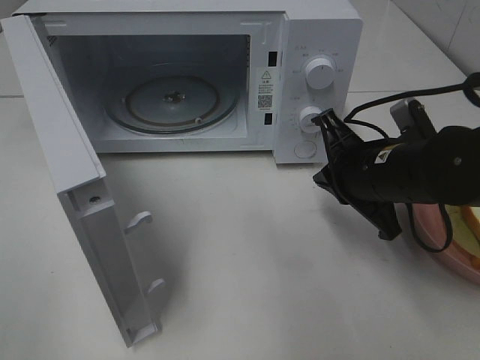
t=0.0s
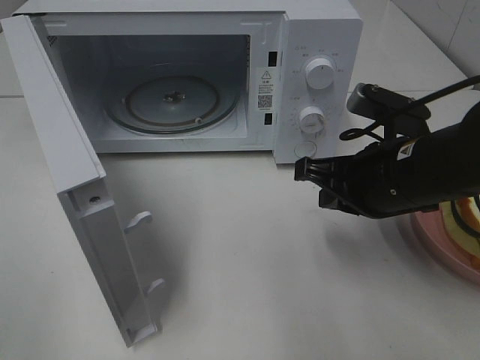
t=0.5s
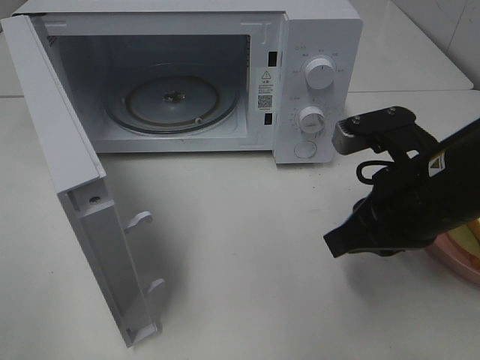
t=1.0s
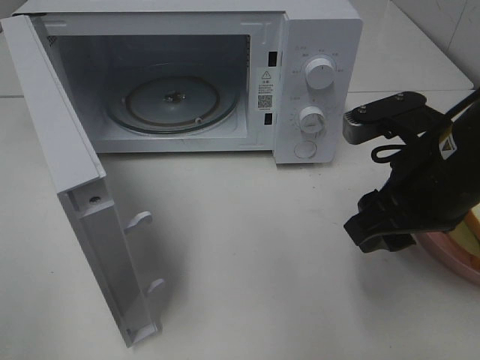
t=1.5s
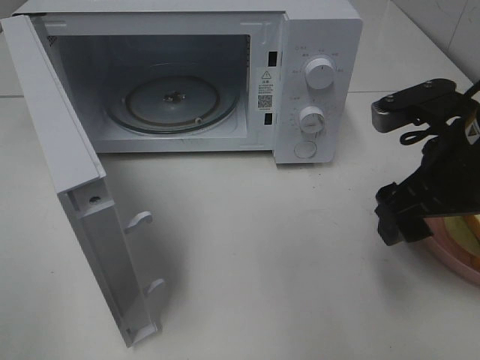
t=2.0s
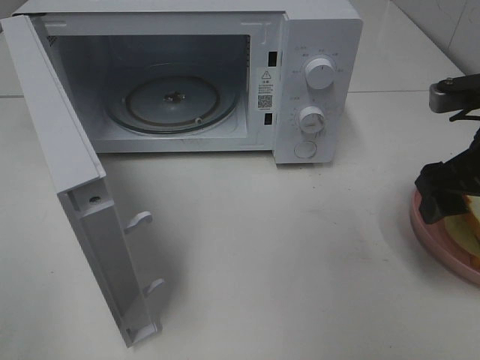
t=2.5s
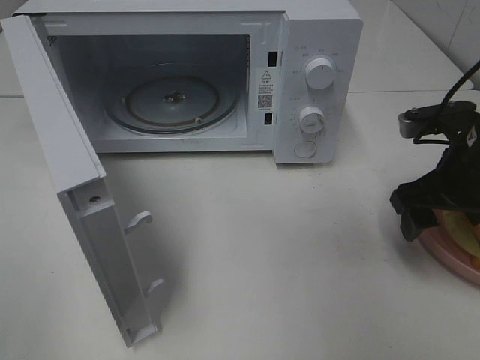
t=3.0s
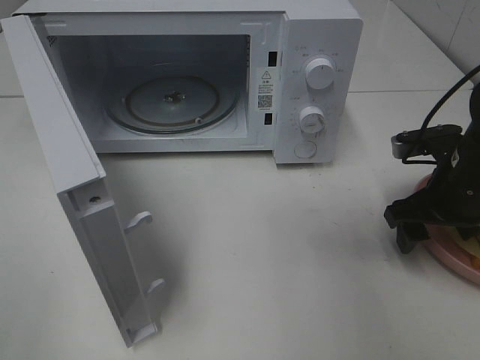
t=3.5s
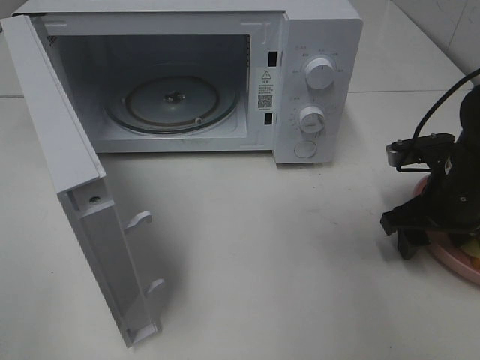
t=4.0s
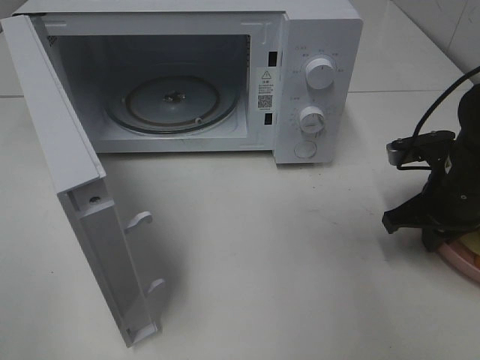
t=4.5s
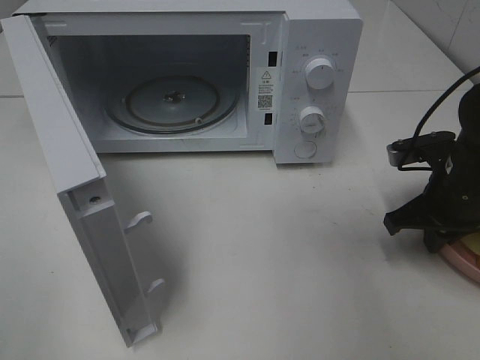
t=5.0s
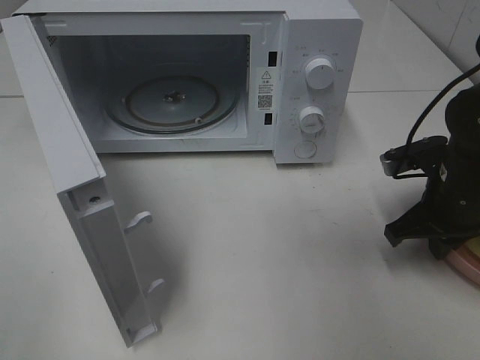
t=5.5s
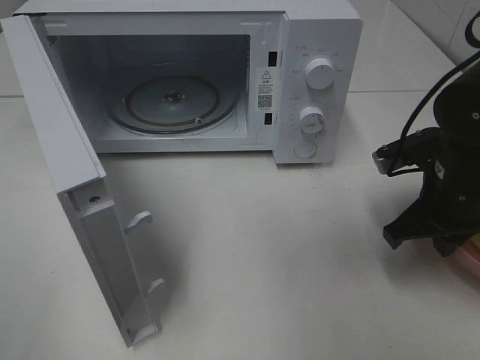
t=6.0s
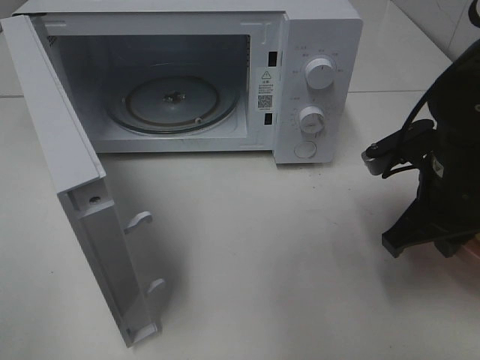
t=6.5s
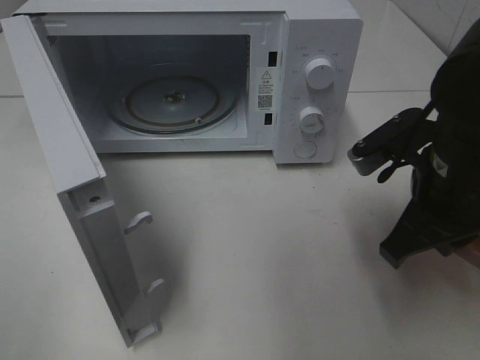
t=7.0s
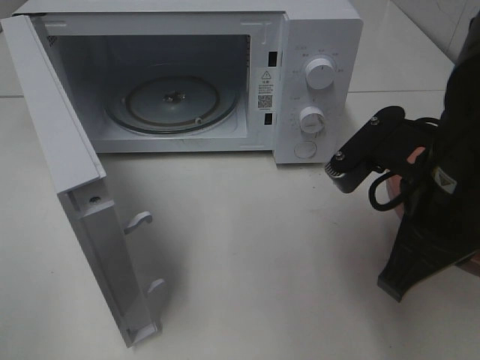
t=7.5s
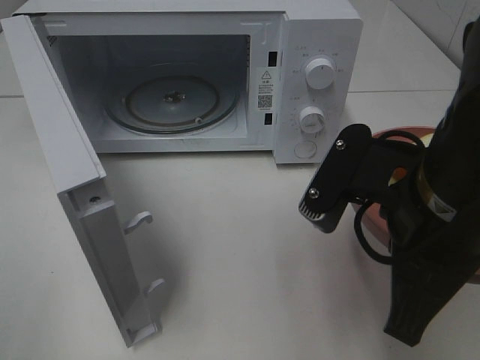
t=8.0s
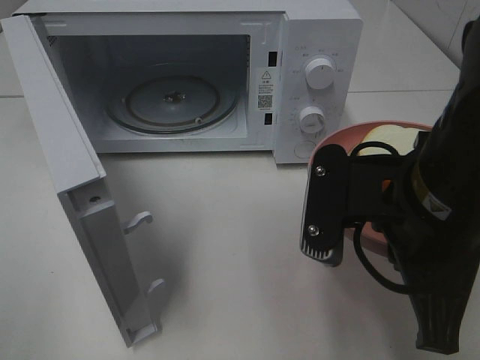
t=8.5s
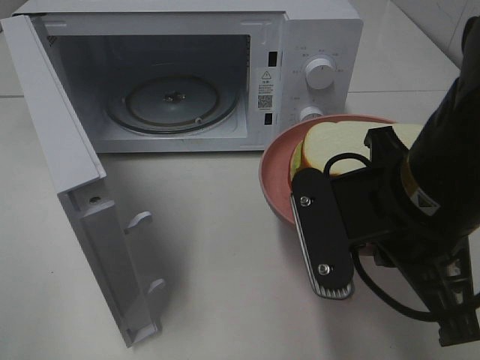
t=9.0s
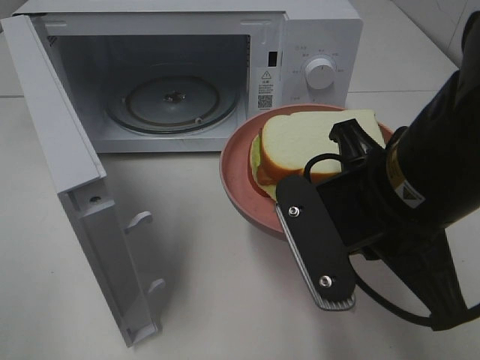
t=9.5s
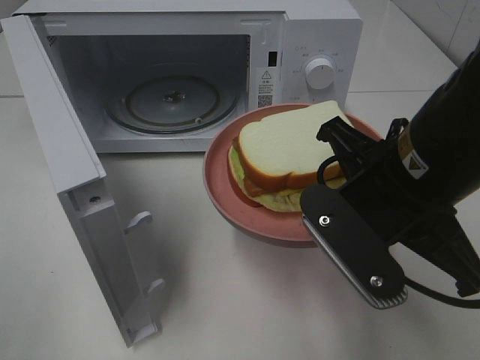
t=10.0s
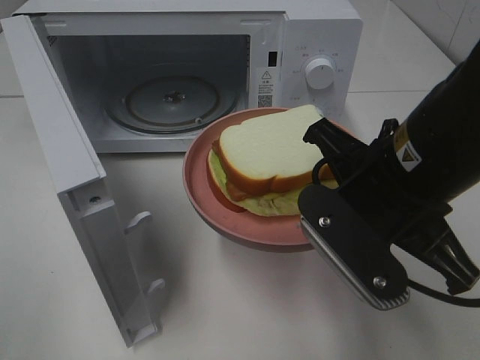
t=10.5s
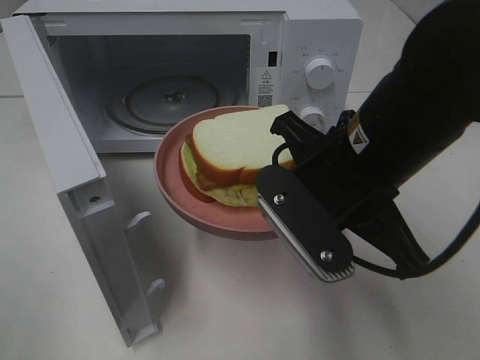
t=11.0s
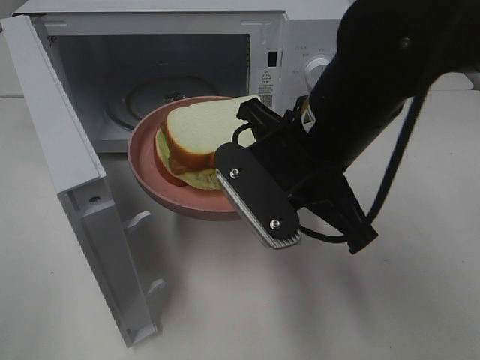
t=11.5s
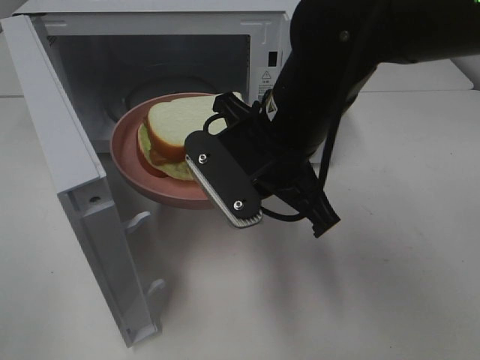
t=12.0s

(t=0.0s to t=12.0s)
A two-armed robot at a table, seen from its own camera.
Task of the whole recording: Heat Sandwich.
Step, t=0.0s - t=4.5s: Right hand: grab the plate with the sandwich.
t=0.0s - t=2.0s: The right gripper is displaced upward by roughly 5 cm, and opens up.
t=2.0s - t=4.0s: The right gripper is displaced downward and forward by roughly 10 cm.
t=4.0s - t=6.0s: The right gripper closes.
t=6.0s - t=8.0s: The right gripper shifts approximately 15 cm backward, to the left and upward.
t=10.0s - t=12.0s: The right gripper shifts some 10 cm to the left and forward.

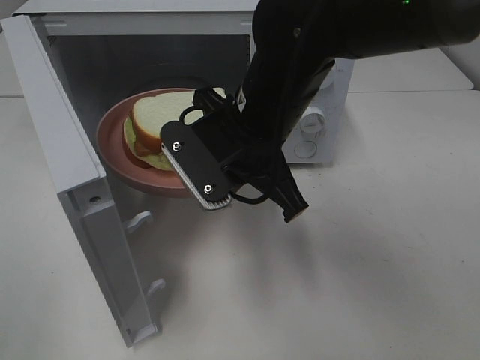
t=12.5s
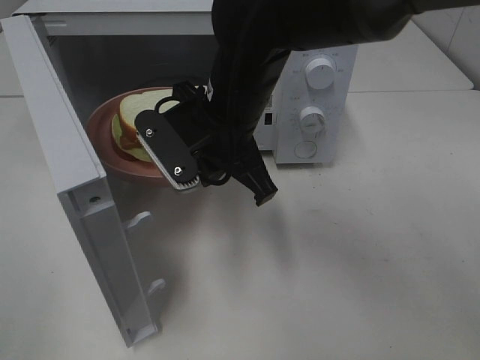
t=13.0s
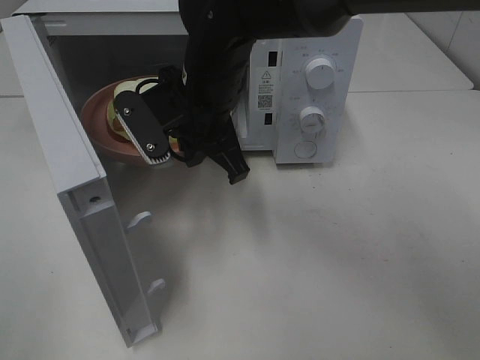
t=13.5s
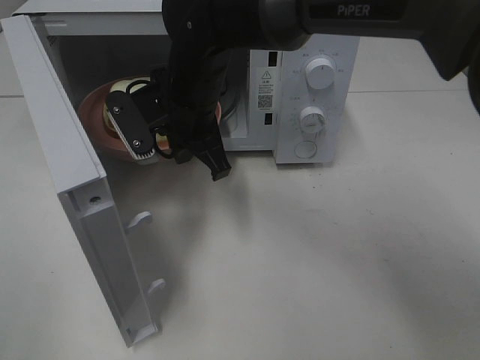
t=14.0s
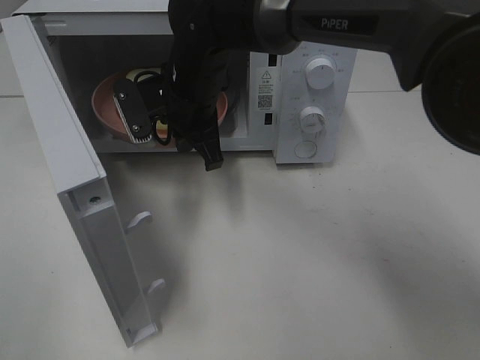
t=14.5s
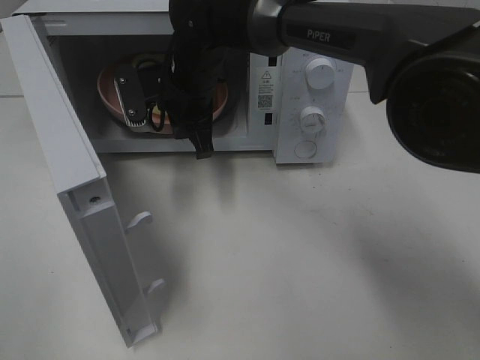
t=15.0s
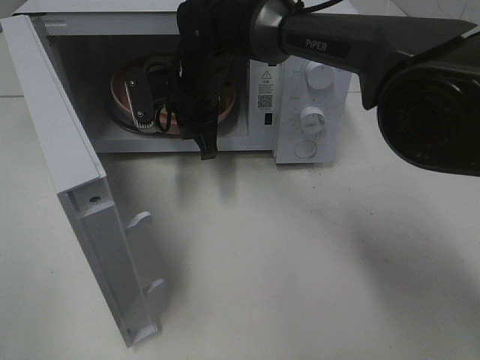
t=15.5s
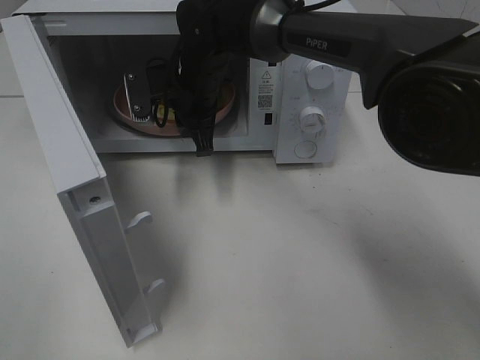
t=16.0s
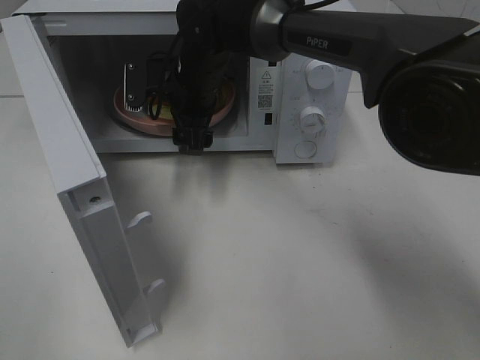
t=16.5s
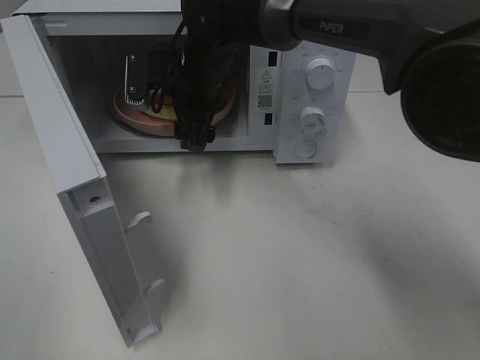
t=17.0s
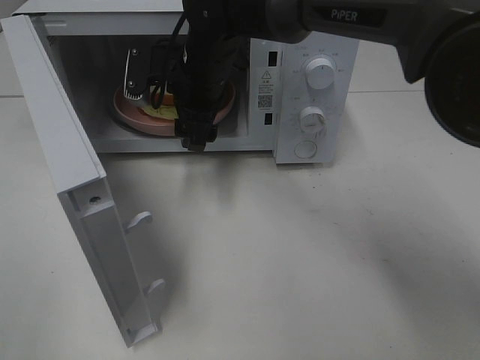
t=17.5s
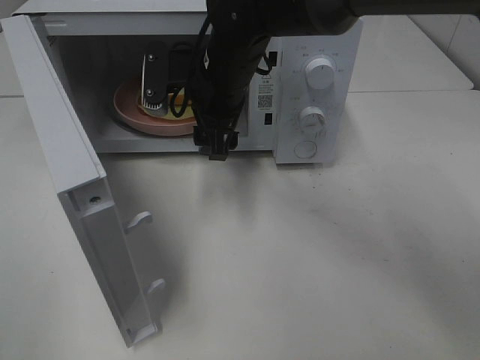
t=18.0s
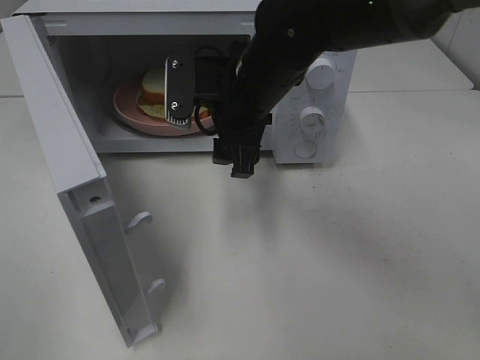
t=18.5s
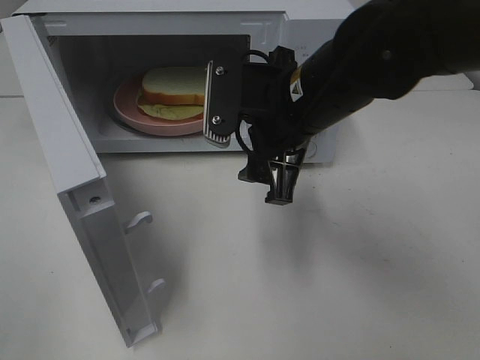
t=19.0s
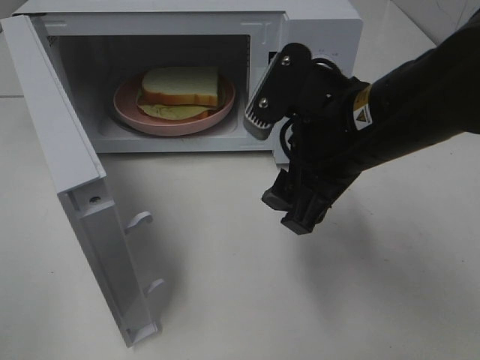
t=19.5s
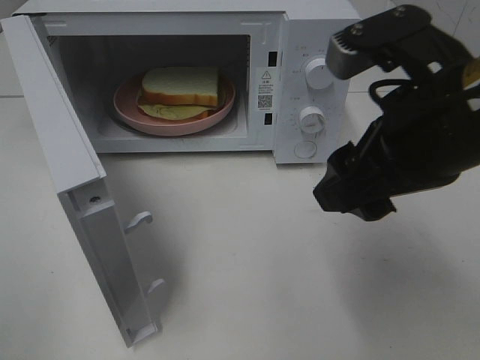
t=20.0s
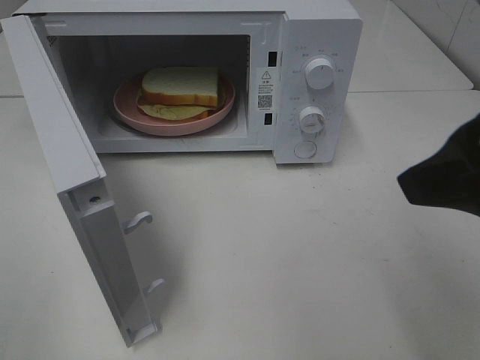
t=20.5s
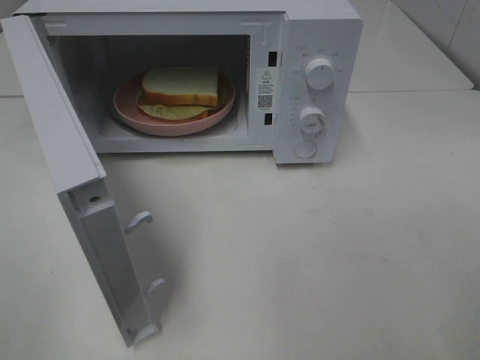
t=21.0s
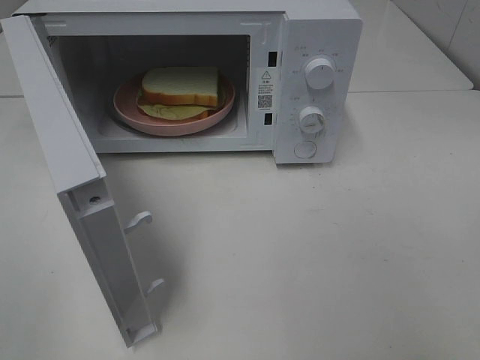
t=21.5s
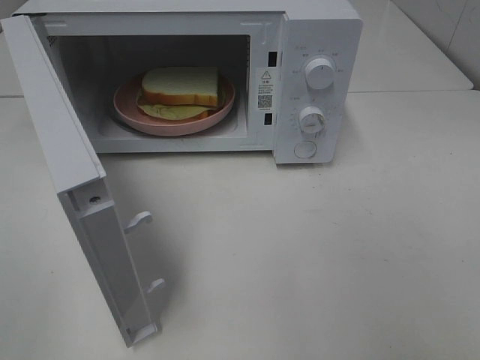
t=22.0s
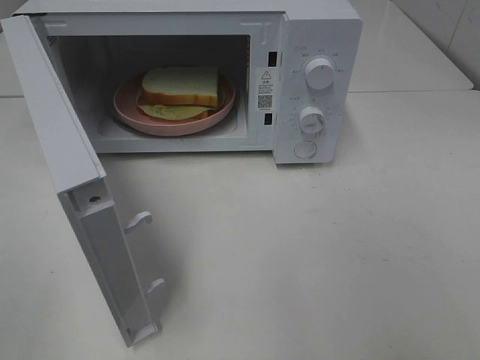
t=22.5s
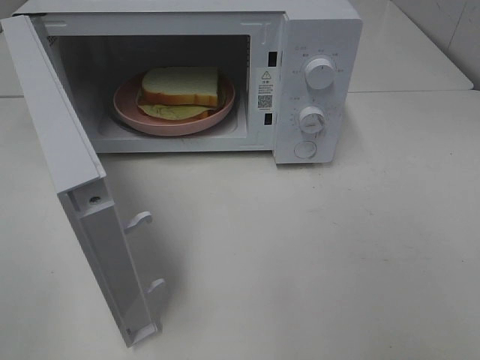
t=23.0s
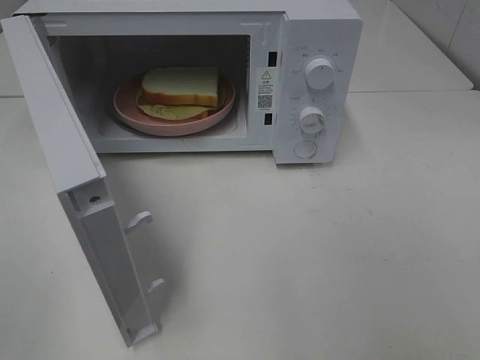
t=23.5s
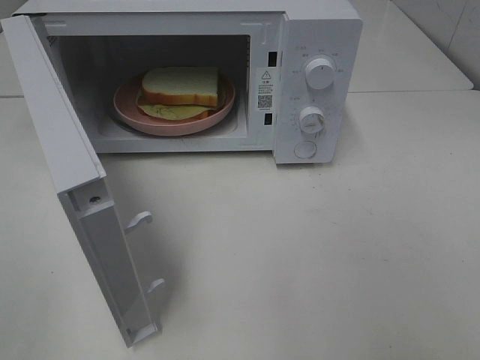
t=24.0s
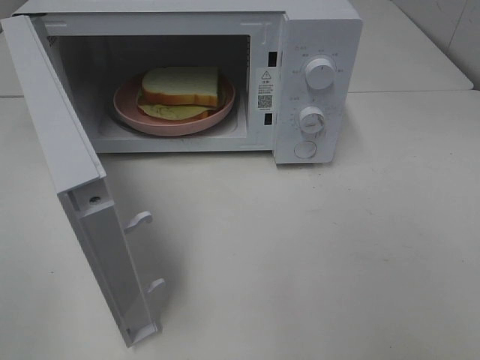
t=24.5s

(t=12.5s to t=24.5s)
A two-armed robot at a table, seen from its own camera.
Task of the whole recording: Heat Sandwich.
Step, t=12.5s - t=17.0s: Right hand: place the plate in the microwave.
t=12.5s - t=14.5s: The right gripper goes roughly 15 cm forward and to the left.
t=14.5s - t=16.5s: The right gripper opens its fingers.
t=16.5s - t=18.5s: The right gripper goes approximately 10 cm backward and to the right.
t=18.5s - t=20.5s: The right gripper shifts some 30 cm backward, to the right and upward.
t=20.5s - t=22.5s: The right gripper moves backward and to the right, roughly 15 cm.
t=22.5s - t=24.5s: Both grippers stay put.

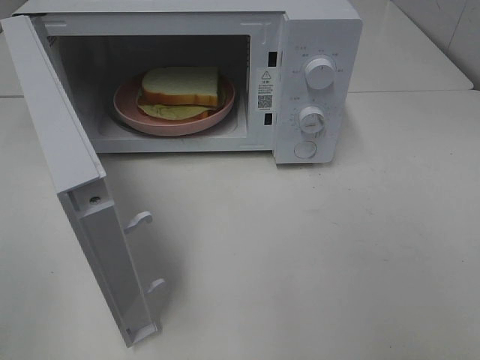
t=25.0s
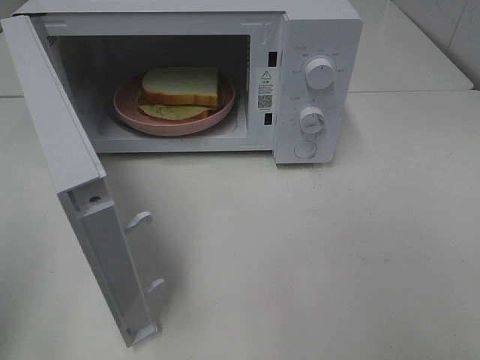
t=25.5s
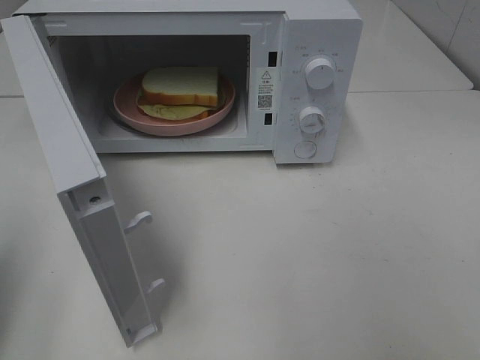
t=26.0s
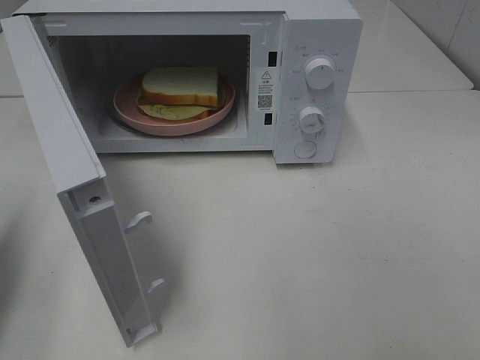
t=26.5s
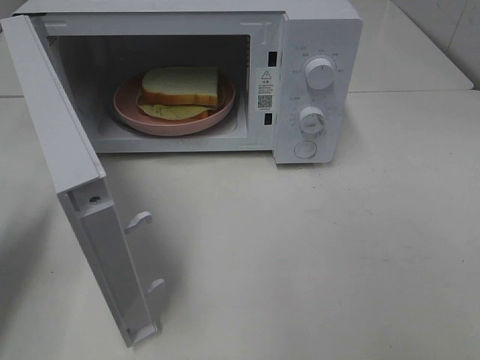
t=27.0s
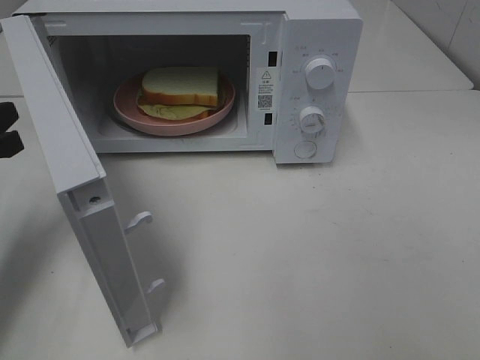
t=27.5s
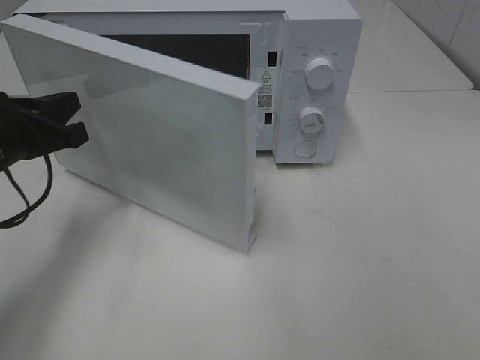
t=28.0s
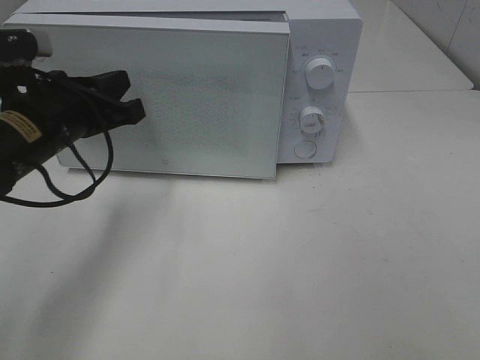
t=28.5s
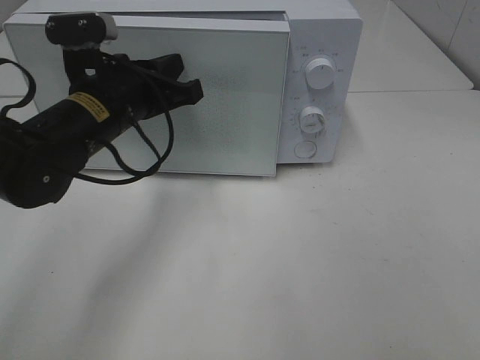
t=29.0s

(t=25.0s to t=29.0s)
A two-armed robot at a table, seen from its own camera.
Task of the whole recording: Heat Sandwich.
t=25.0s - t=27.0s: The left gripper goes approximately 25 cm forward and downward, and closes its fingers.
t=27.0s - t=29.0s: The left gripper is displaced to the right and forward by some 20 cm.
